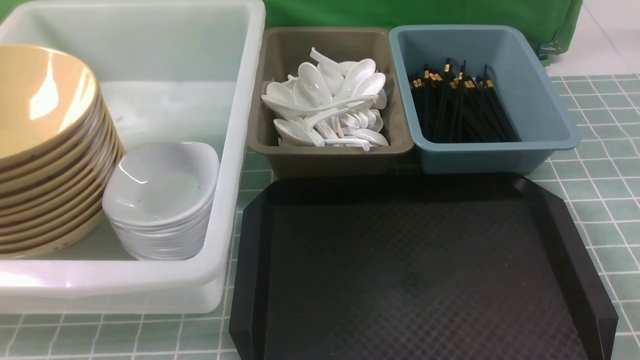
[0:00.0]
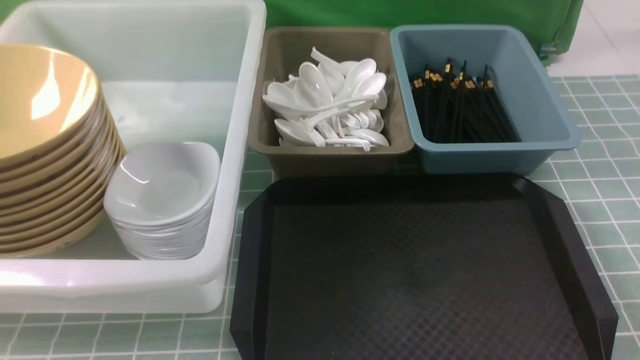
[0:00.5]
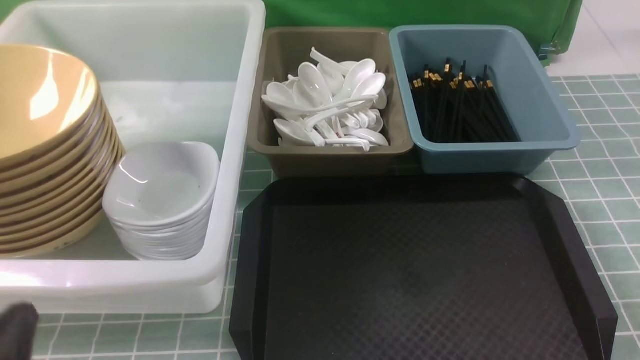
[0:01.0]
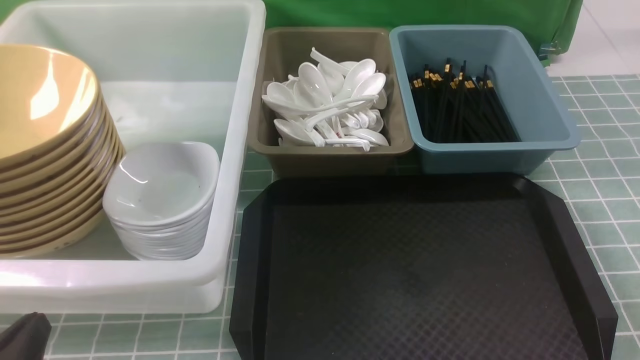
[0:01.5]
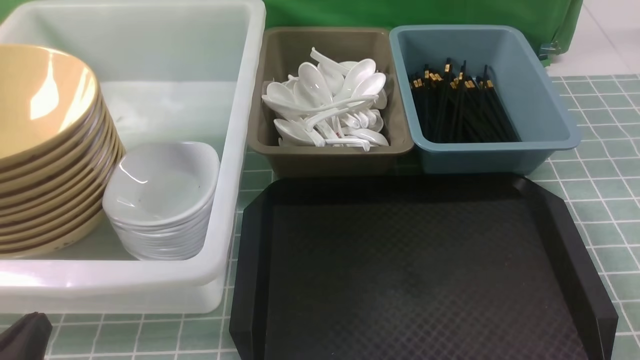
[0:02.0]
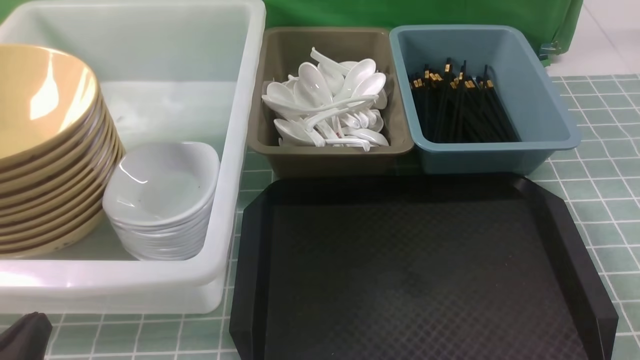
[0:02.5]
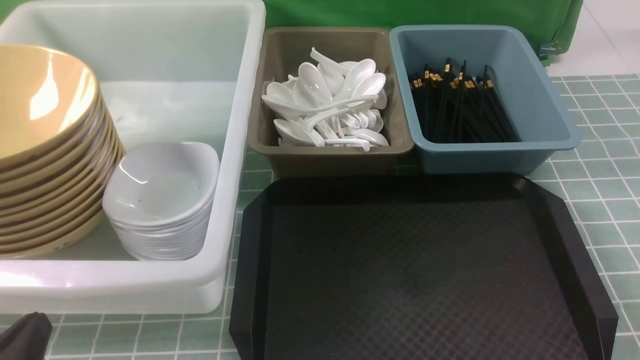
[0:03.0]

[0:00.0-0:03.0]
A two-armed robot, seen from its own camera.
Task of the whole recording: on blue table put chopsticks spoon bowls plates into blue grey white boxes.
0:00.0 to 0:01.5: The left gripper moves downward, approximately 10 cm.
0:01.5 to 0:03.0: Both grippers stay put.
